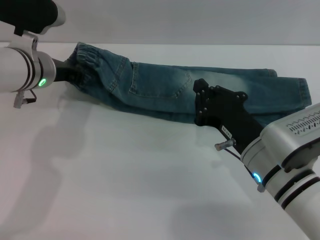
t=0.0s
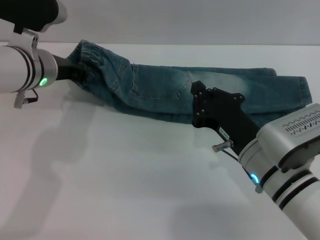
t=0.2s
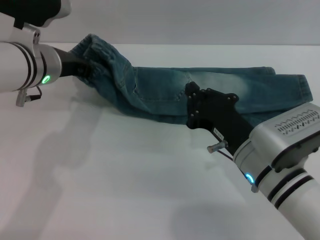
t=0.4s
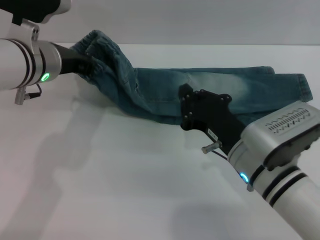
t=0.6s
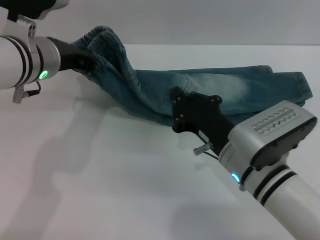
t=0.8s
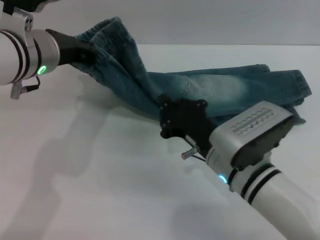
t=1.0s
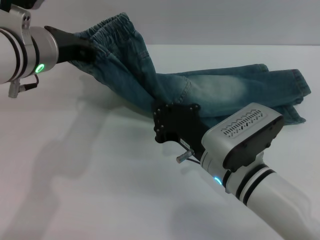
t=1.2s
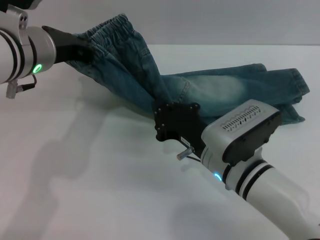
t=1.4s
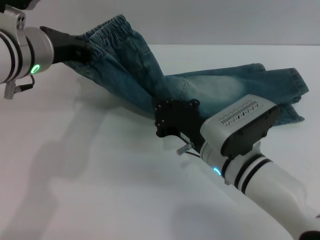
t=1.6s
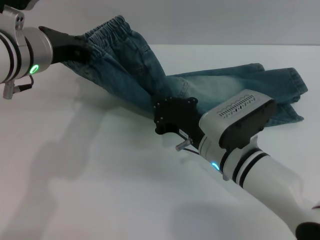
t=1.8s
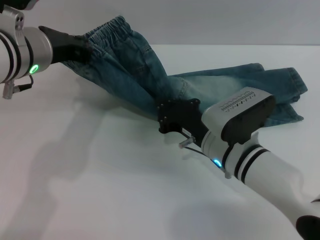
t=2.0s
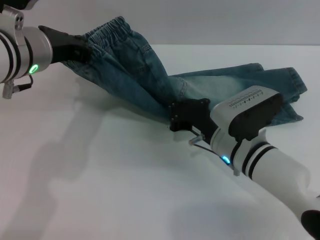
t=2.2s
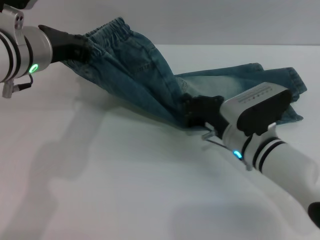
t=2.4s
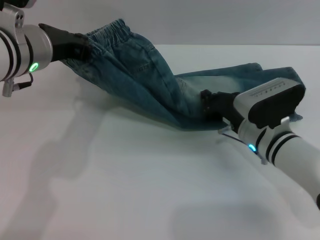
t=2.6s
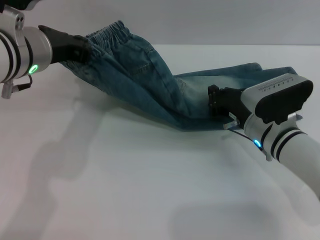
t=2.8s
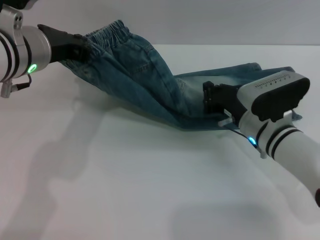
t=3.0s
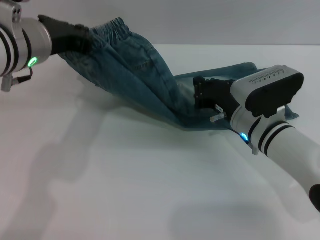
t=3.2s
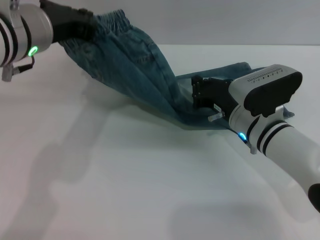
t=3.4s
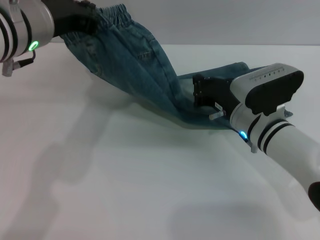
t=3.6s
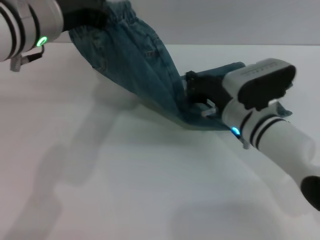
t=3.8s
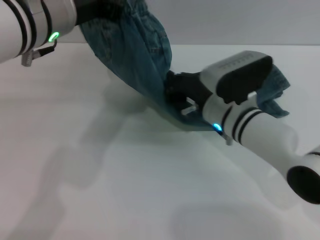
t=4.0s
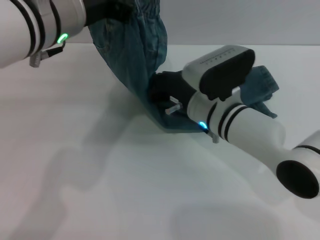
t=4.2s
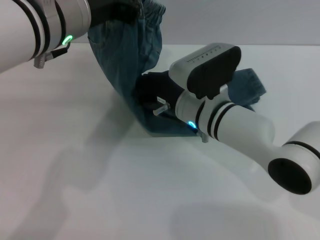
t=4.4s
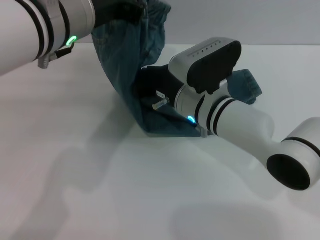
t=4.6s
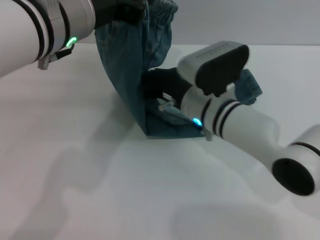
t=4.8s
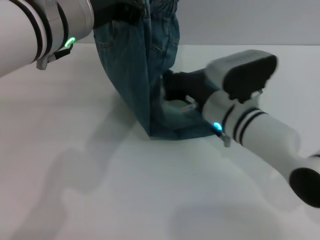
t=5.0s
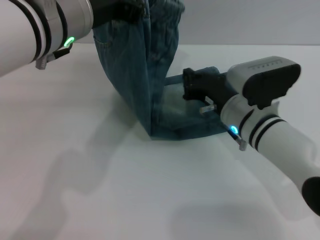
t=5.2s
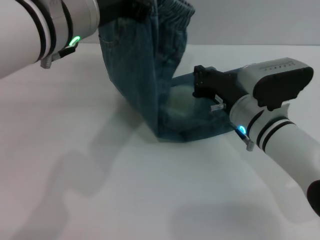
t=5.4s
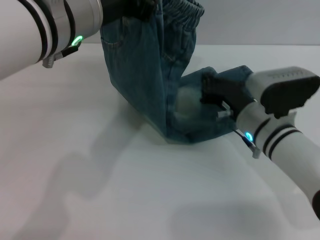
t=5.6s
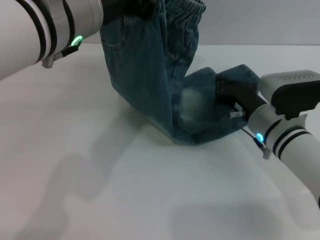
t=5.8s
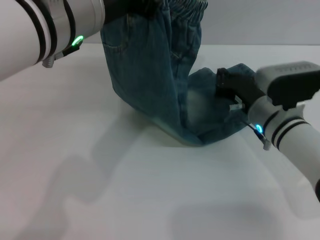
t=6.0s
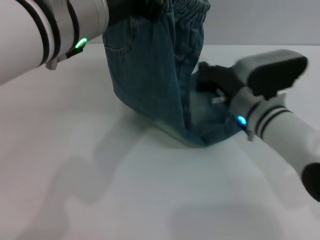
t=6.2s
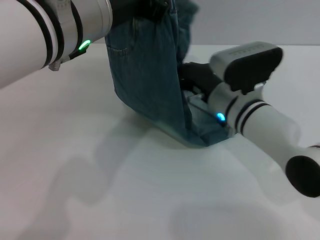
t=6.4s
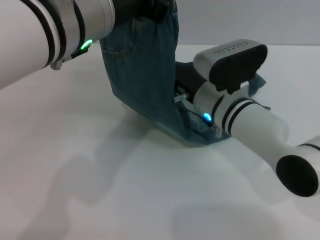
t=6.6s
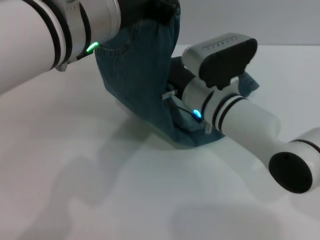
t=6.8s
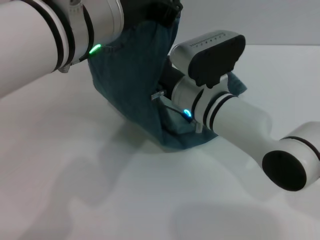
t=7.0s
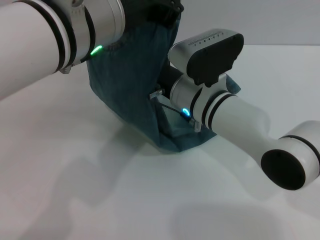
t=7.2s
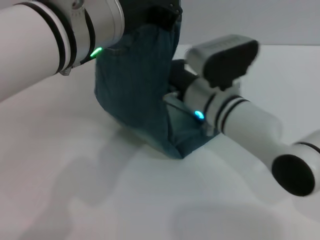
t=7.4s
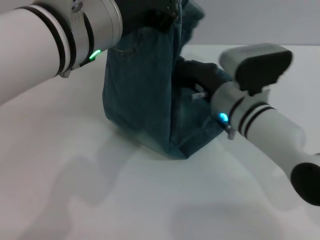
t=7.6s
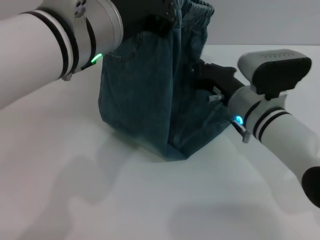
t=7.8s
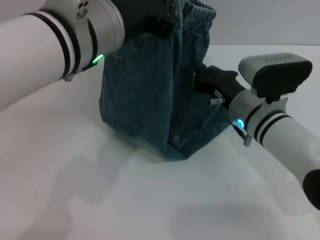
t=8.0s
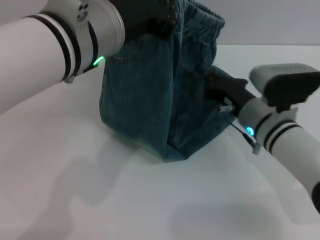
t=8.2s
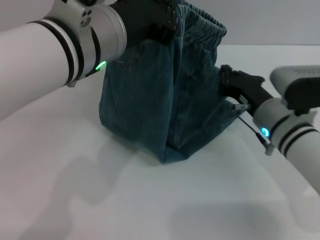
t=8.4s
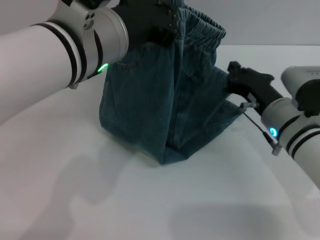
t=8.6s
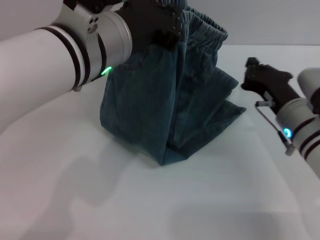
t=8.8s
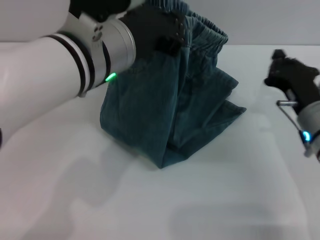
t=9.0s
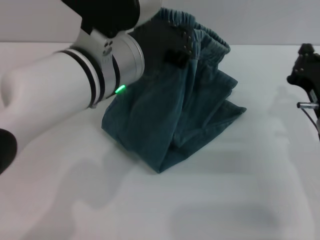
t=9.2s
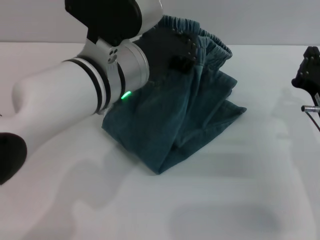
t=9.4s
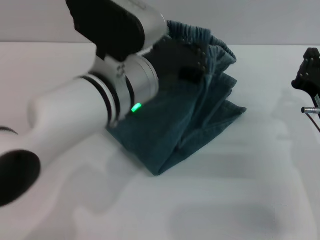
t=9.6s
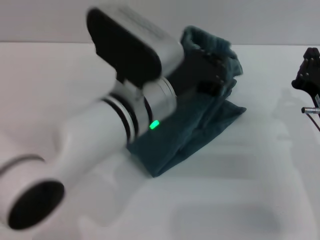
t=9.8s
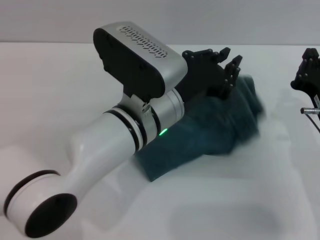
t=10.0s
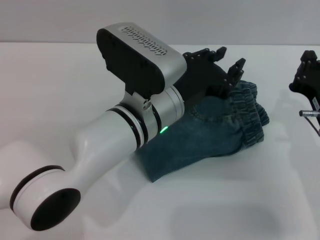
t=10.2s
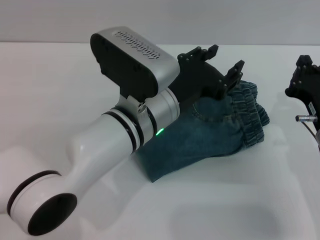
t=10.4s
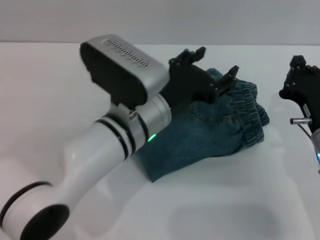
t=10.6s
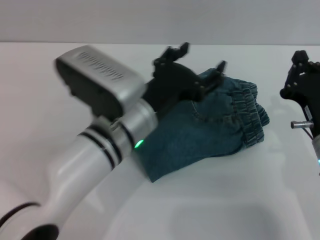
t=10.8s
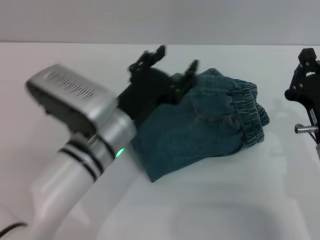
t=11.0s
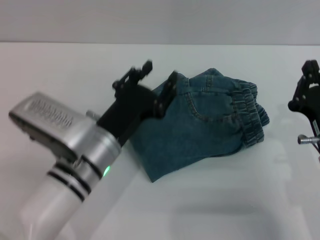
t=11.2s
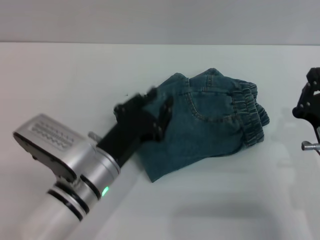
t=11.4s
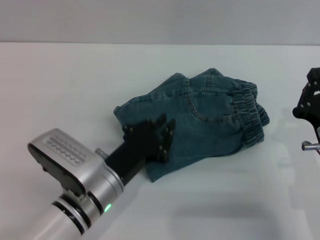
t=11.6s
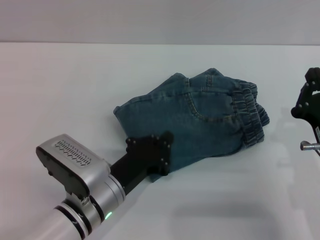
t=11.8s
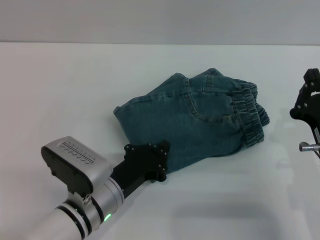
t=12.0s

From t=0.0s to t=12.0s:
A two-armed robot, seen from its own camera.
Step, from t=0.0s to t=10.2s: Fold the pants from left to right with the left gripper.
From t=0.0s to t=1.6s: The left gripper heads upward, covering roughly 5 cm. The right gripper changes place by some 5 cm.
From t=1.6s to t=3.0s: The right gripper travels to the right and forward by about 10 cm.
From t=3.0s to t=4.4s: The right gripper shifts about 10 cm to the left; the left gripper moves to the right, some 5 cm.
From t=4.4s to t=6.0s: The right gripper is displaced to the right by about 10 cm.
From t=6.0s to t=7.6s: The right gripper is displaced to the left by some 5 cm.
From t=7.6s to t=9.0s: The right gripper moves to the right and backward, about 10 cm.
From t=9.0s to t=10.4s: The left gripper shifts about 10 cm downward, and opens up.
From t=10.4s to t=12.0s: The left gripper heads downward, to the left and backward, covering some 15 cm, and closes its fingers.

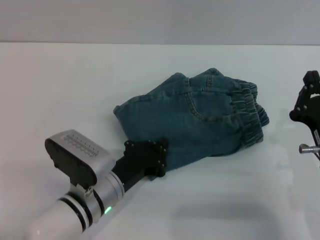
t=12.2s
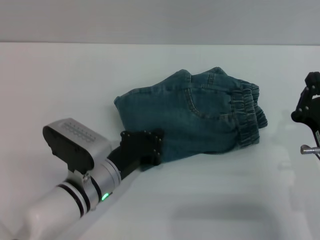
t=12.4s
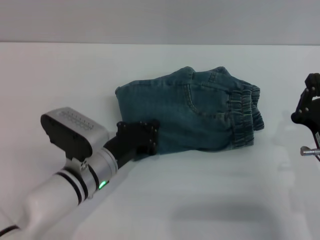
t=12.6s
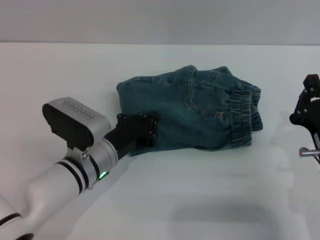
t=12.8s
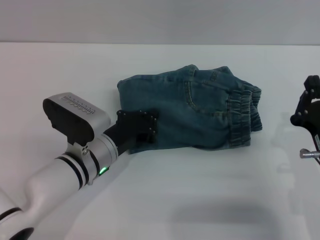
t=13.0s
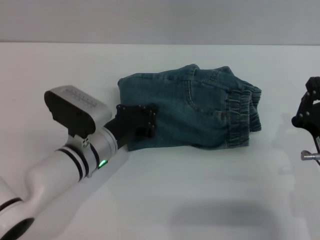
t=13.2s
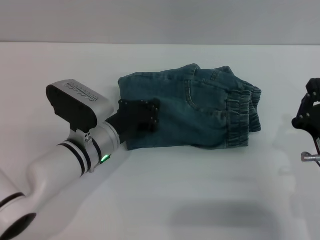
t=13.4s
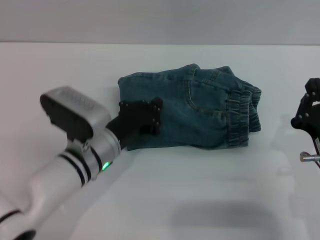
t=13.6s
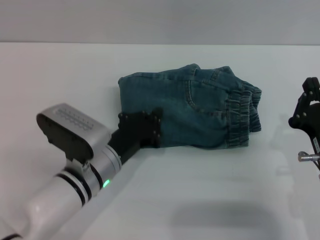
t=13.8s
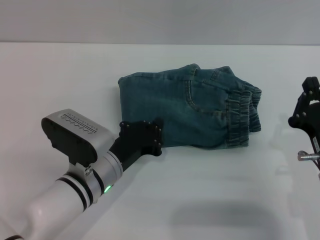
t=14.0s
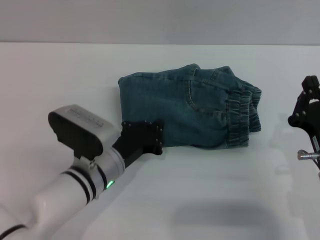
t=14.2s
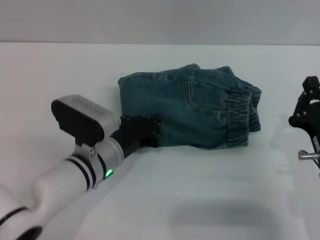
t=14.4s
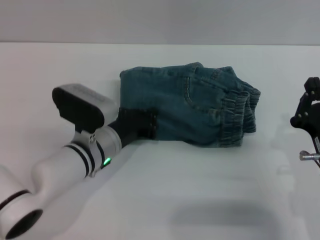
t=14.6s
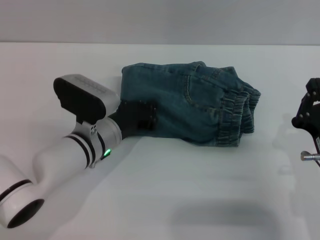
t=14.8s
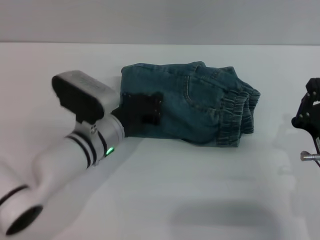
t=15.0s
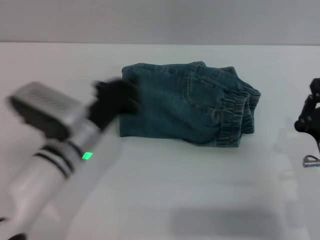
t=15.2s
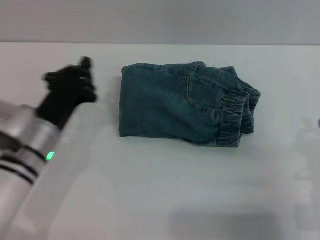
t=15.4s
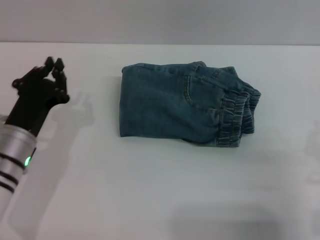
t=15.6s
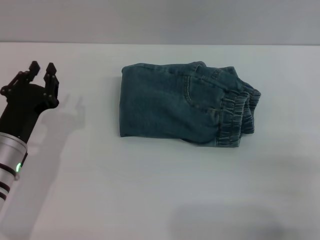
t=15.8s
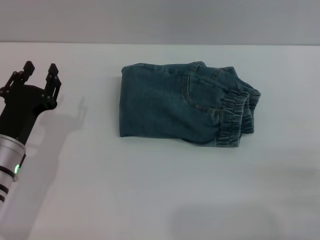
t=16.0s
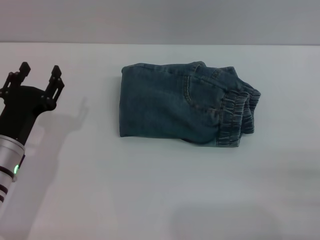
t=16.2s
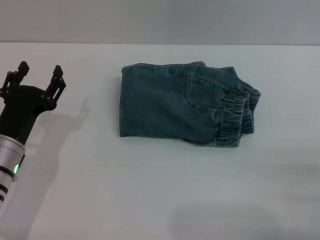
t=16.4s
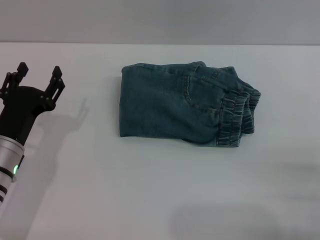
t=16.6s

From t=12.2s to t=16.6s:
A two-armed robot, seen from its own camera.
Step, from t=12.2s to t=15.0s: Place the folded trousers onto the center area with the left grippers.
From t=12.2s to t=13.6s: The left gripper is displaced forward by some 5 cm.
From t=13.6s to t=15.2s: The grippers move only a little.
From t=15.2s to t=16.6s: The right gripper is displaced to the right by roughly 10 cm, and opens its fingers. Meanwhile the left gripper heads to the left, covering about 10 cm, and opens.
